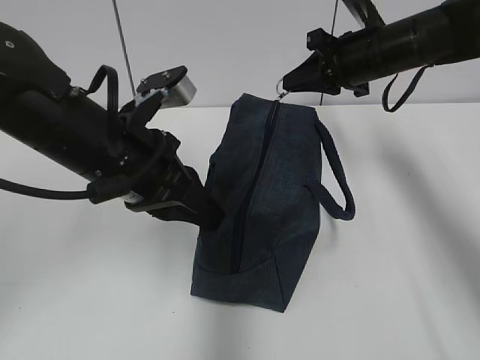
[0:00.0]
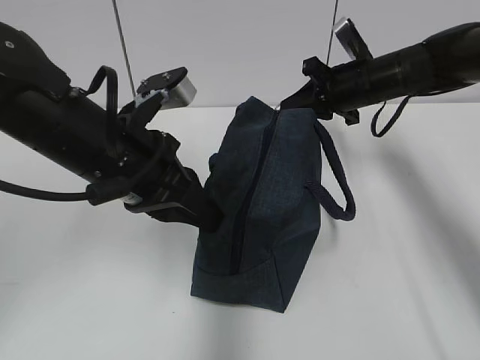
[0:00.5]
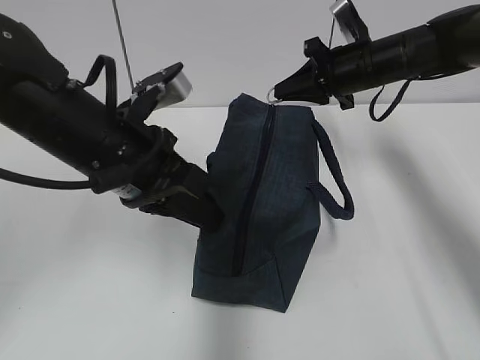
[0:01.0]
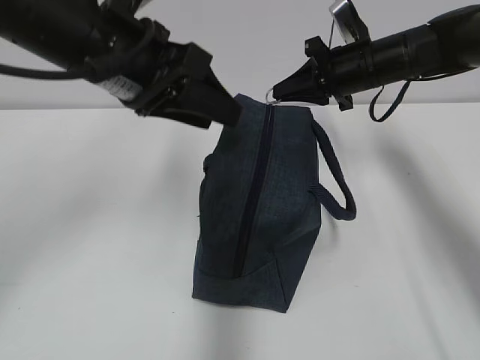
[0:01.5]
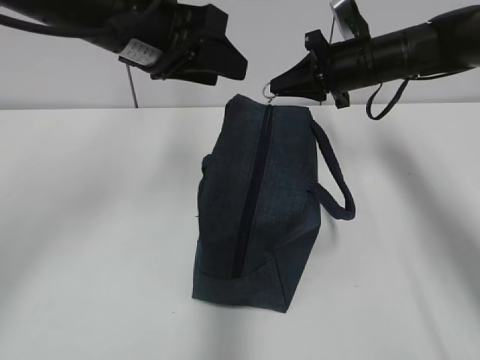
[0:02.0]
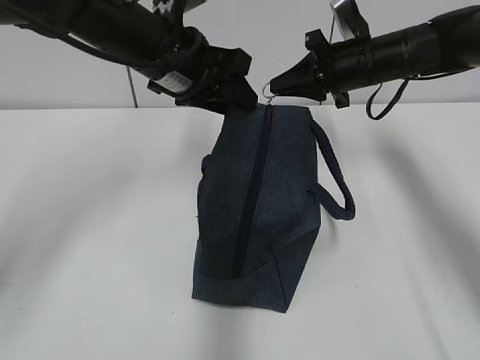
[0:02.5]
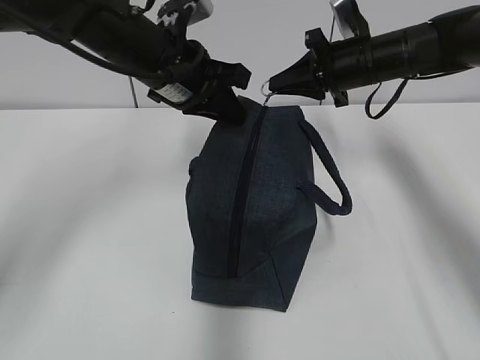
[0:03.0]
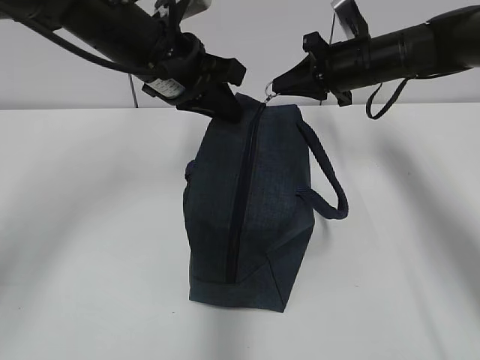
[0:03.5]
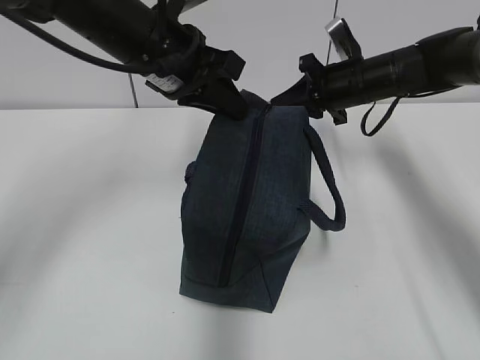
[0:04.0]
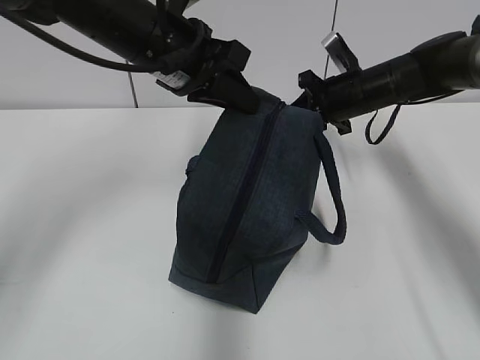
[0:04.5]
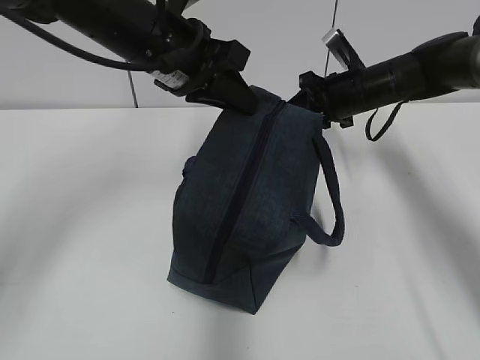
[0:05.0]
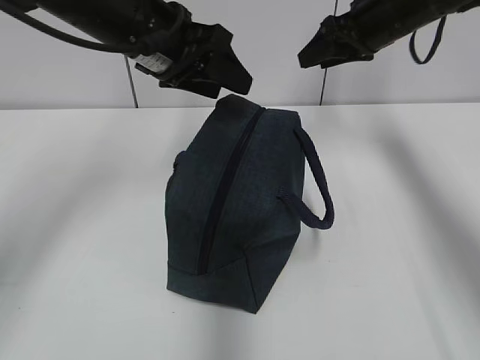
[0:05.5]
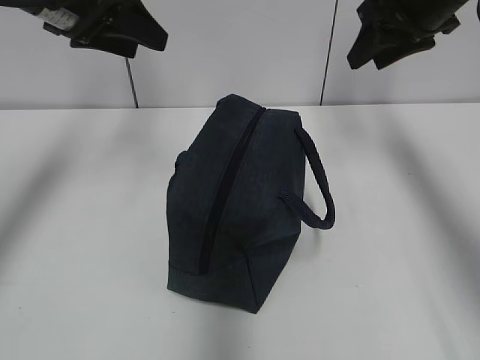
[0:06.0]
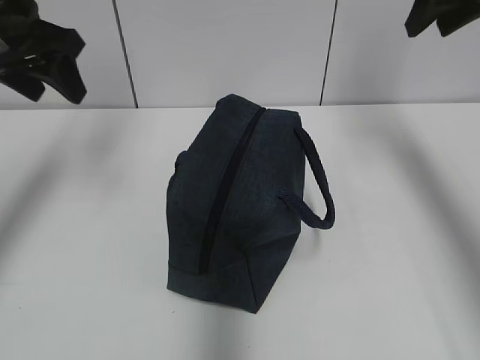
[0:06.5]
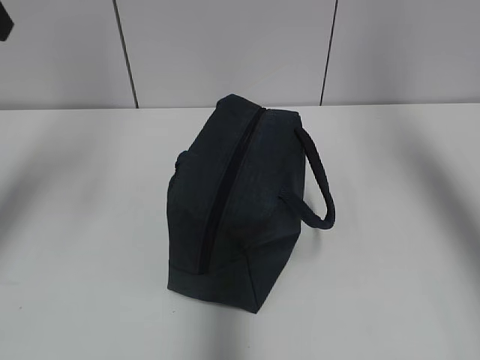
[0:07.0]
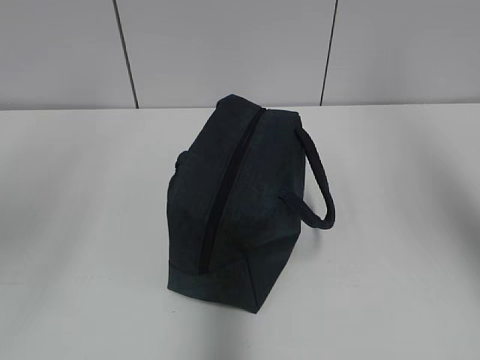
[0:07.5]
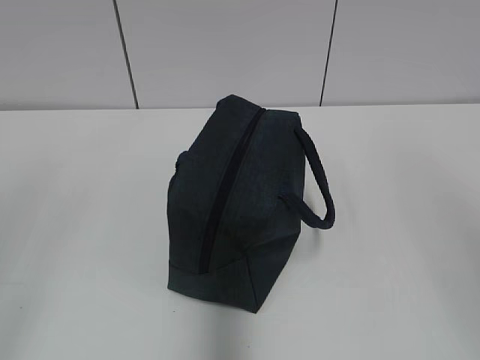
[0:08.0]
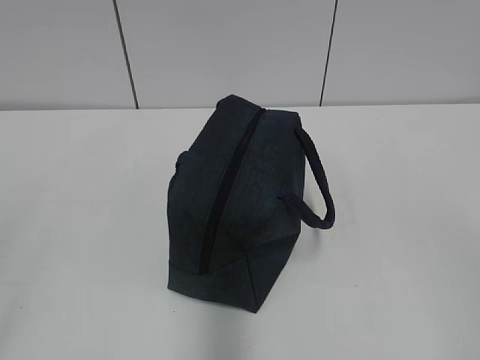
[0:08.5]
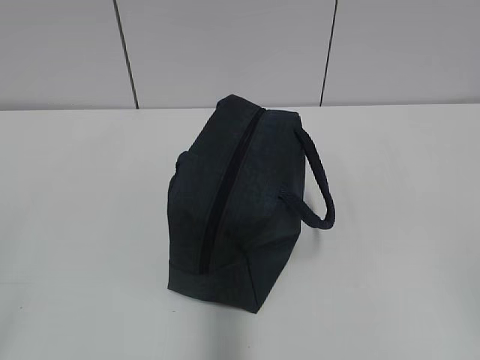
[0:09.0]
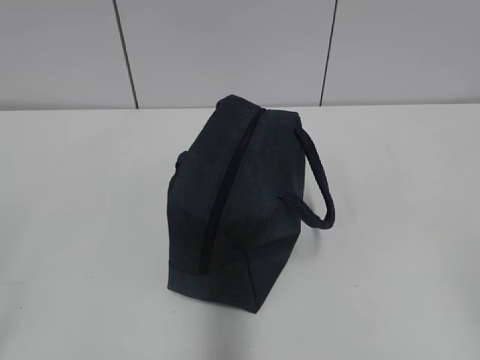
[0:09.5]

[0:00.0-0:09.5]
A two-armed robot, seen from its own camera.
Step, 0:01.5 to 0:04.5: Pull the zipper with your right hand.
0:00.0 to 0:02.0: The left gripper travels upward and forward by approximately 10 cm, and opens.
0:02.0 to 0:04.0: The left gripper closes its fingers.
0:04.0 to 0:05.5: The right gripper heads upward, covering approximately 10 cm, and opens. Meanwhile the left gripper opens its fingers.
0:05.5 to 0:07.5: The left gripper moves backward, to the left and upward, some 30 cm. Meanwhile the right gripper is displaced backward and upward by about 35 cm.
0:07.5 to 0:09.5: The left gripper moves backward and downward, roughly 20 cm; the right gripper heads downward and backward, covering about 30 cm.

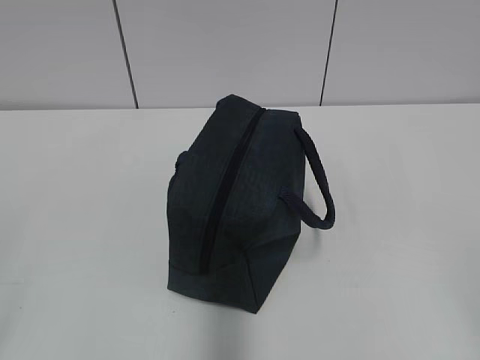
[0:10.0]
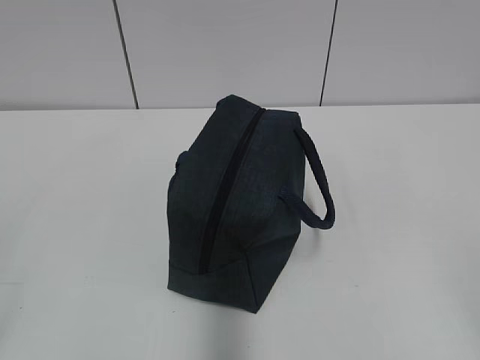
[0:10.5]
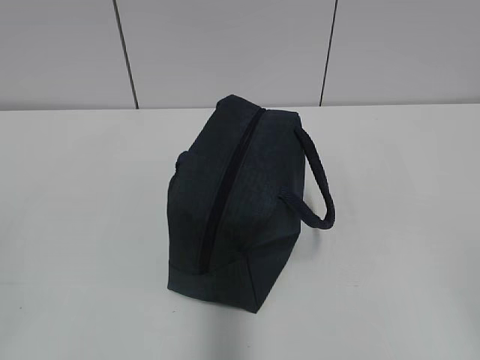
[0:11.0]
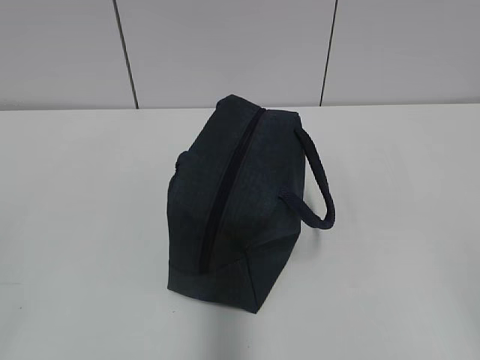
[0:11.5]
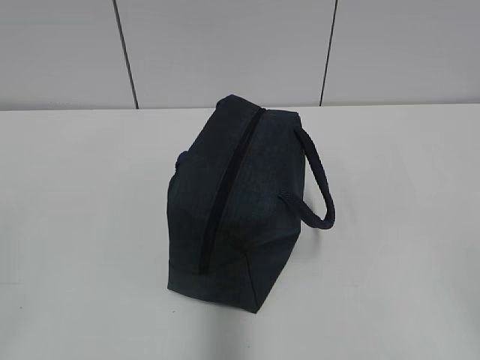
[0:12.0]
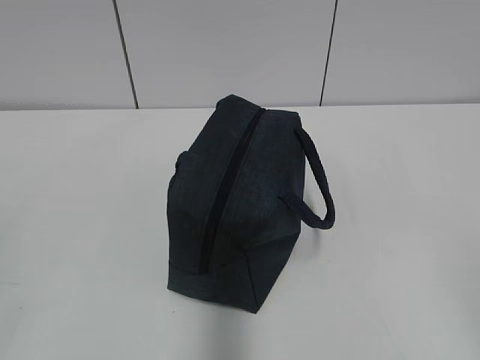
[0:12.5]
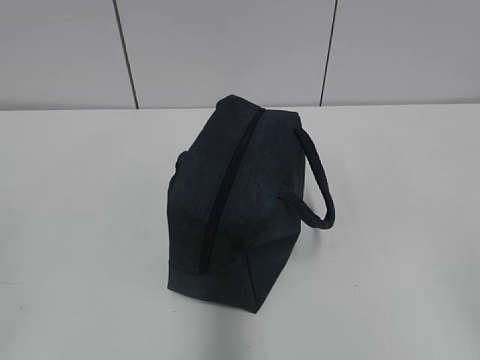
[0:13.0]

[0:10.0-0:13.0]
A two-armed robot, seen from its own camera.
0:11.5 to 0:13.0: Neither gripper changes place.

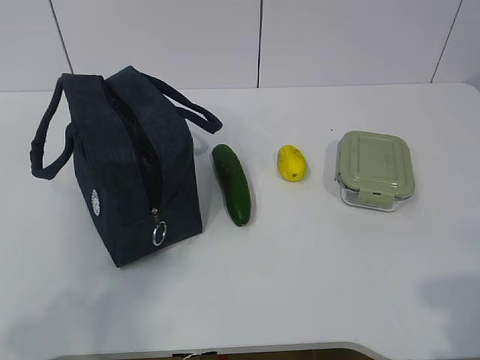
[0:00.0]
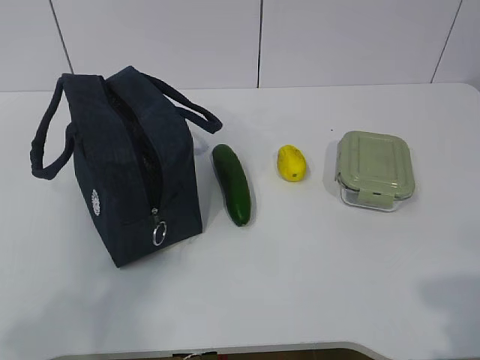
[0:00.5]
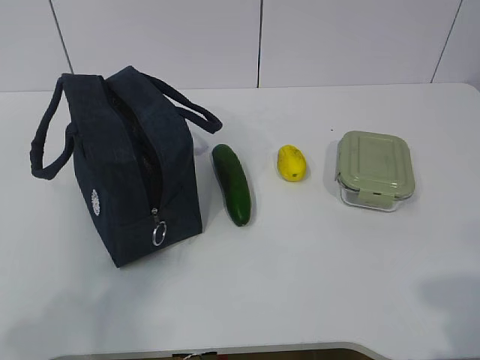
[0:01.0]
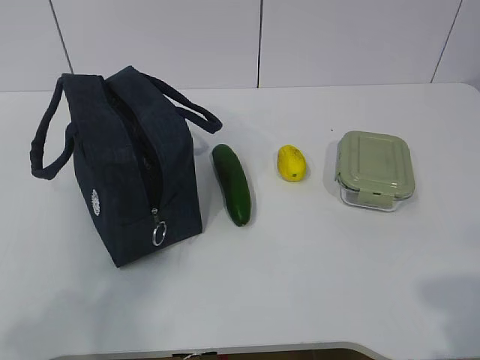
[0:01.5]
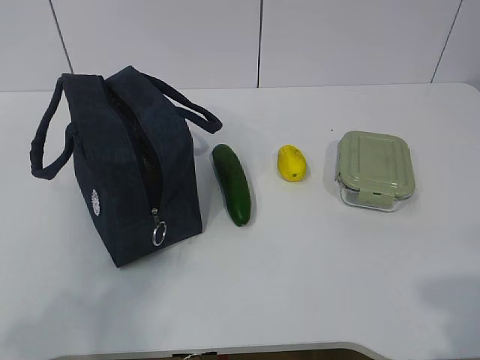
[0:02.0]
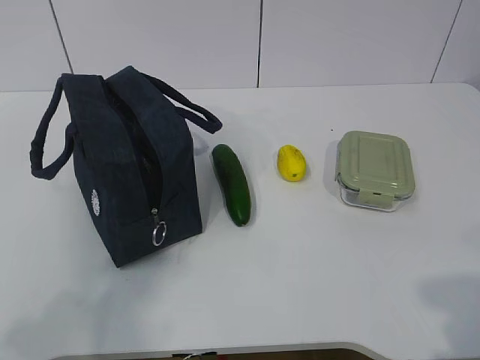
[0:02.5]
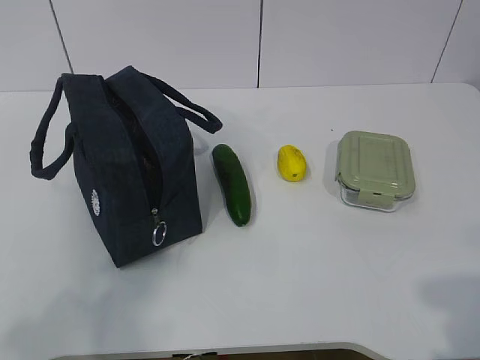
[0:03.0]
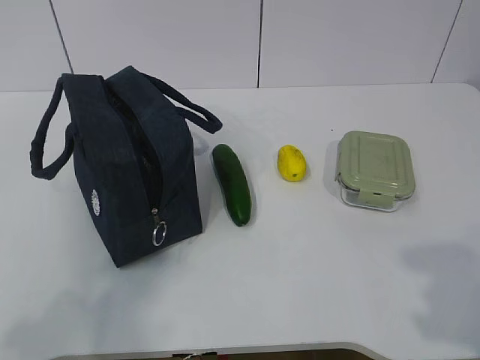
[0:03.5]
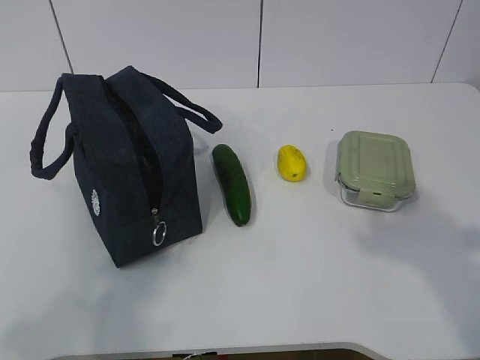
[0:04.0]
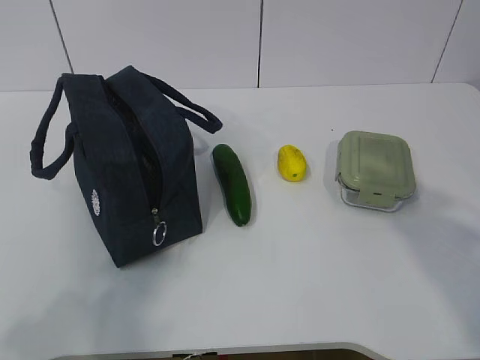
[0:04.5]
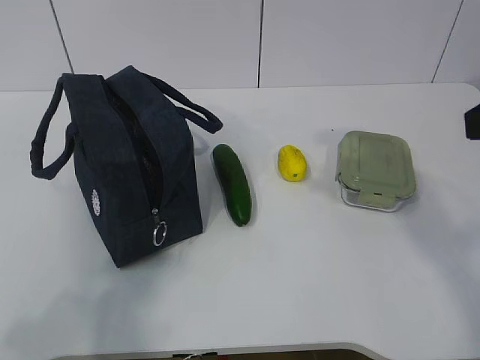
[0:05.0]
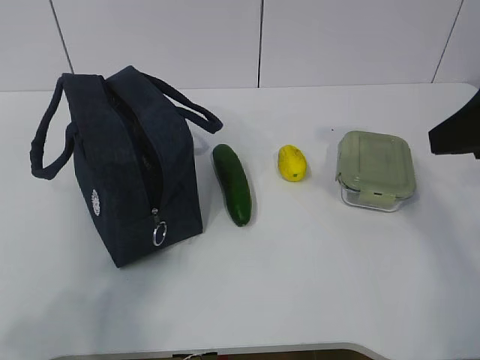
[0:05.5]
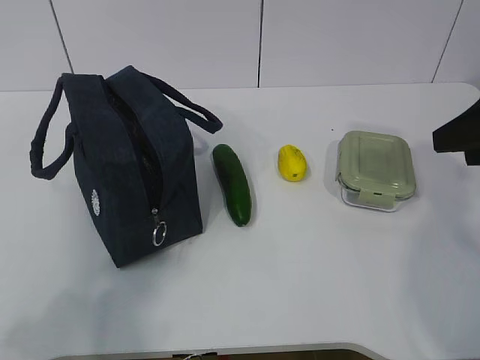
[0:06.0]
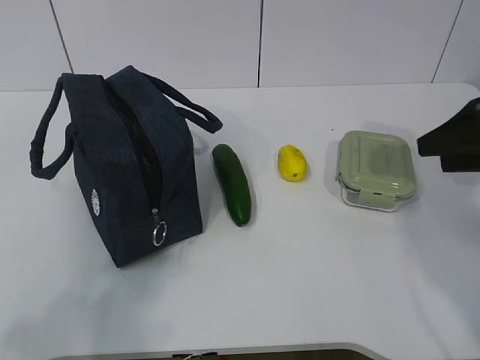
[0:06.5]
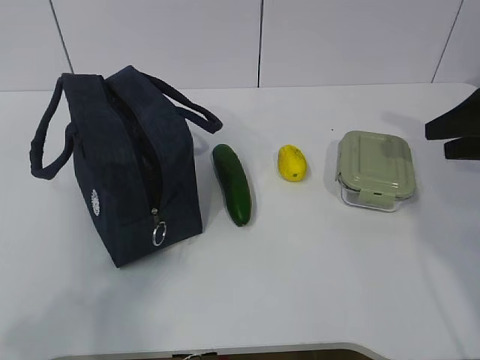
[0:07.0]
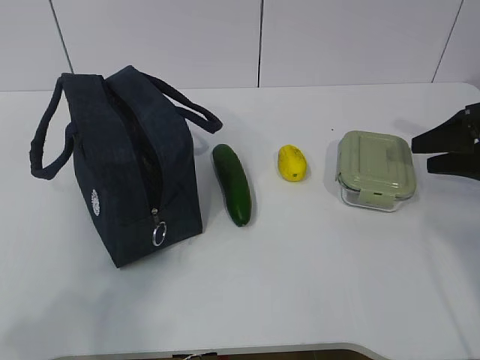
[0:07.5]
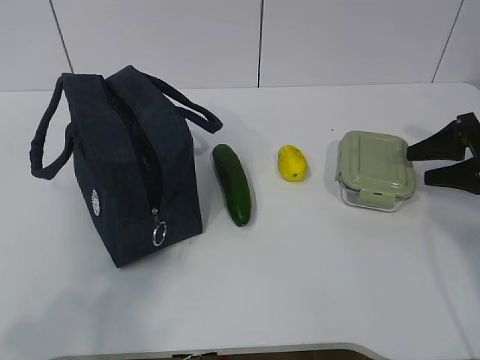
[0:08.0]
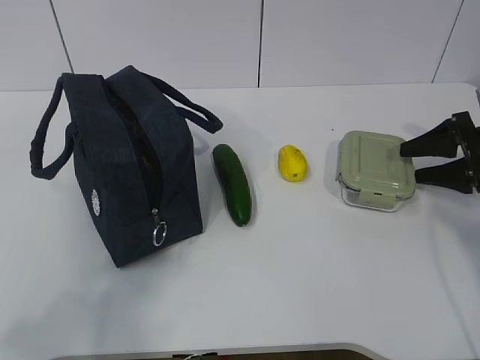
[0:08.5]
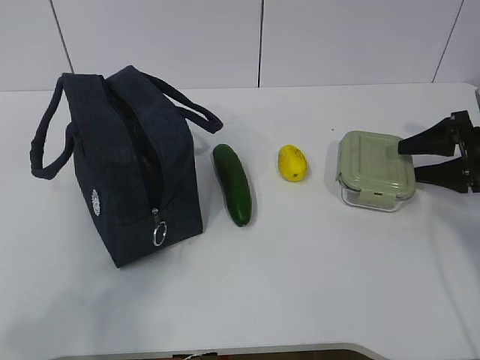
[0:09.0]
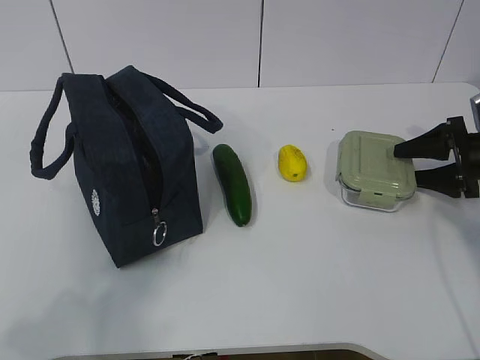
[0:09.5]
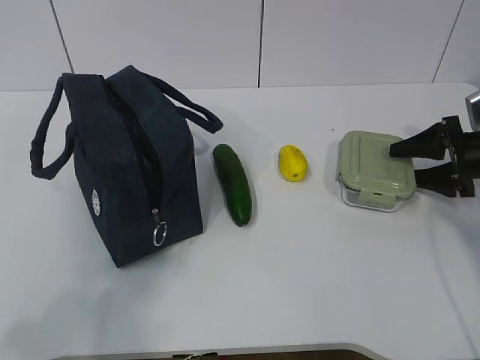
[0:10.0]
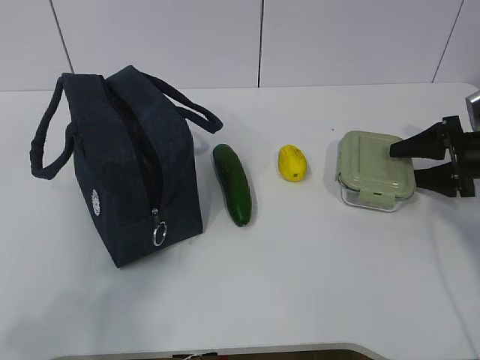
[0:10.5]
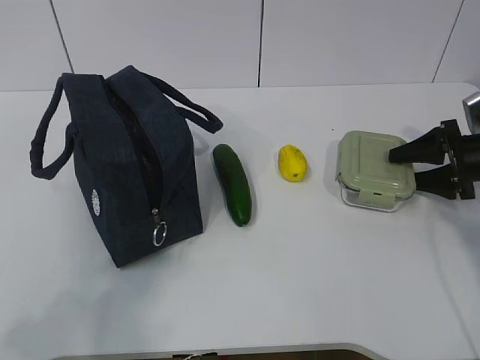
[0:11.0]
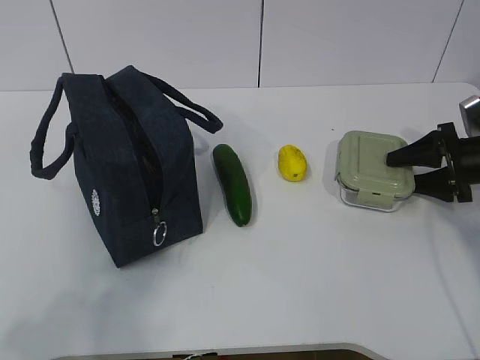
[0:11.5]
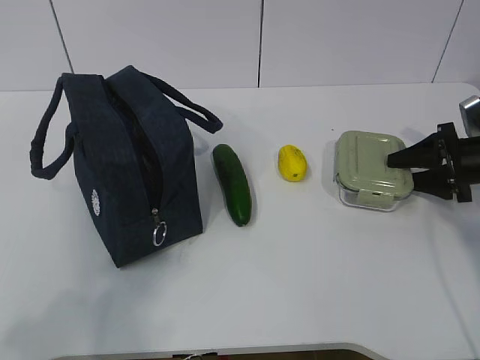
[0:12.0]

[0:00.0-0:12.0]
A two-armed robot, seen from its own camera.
Step, 0:00.0 to 0:10.5: Grab the lunch box with your right hand.
0:02.0 to 0:04.0: The right gripper is displaced forward and upward by some 10 cm.
0:04.0 to 0:06.0: The right gripper moves forward, roughly 20 cm.
0:06.0 to 0:08.0: The right gripper travels downward, forward and to the right by approximately 20 cm.
0:08.0 to 0:10.0: The grippers move only a little.
0:10.0 to 0:12.0: Both grippers stay put.

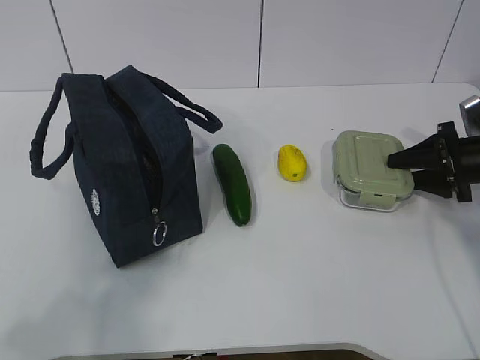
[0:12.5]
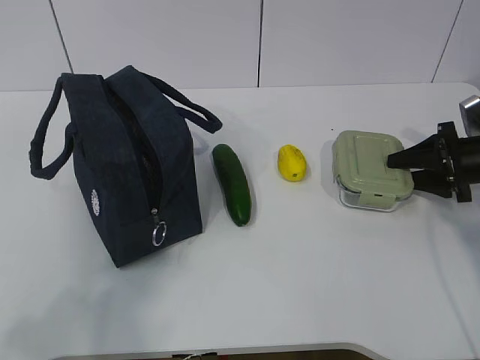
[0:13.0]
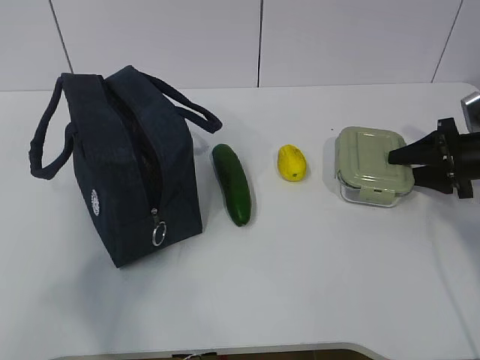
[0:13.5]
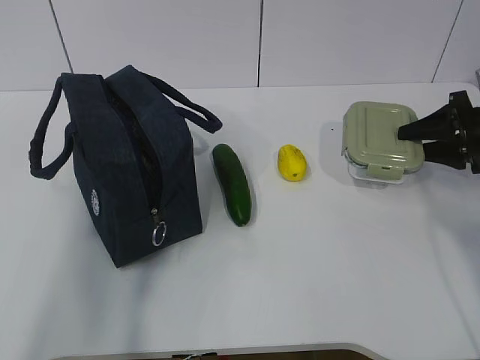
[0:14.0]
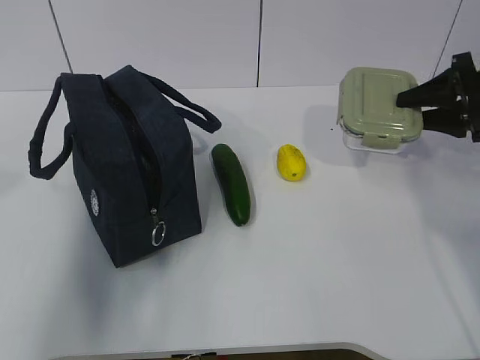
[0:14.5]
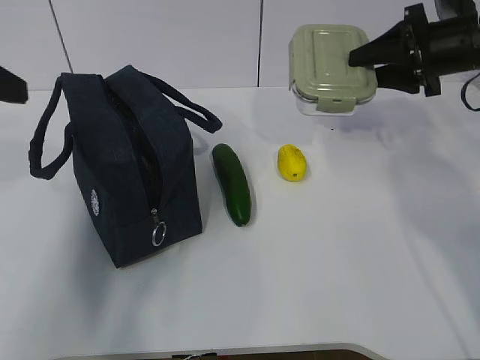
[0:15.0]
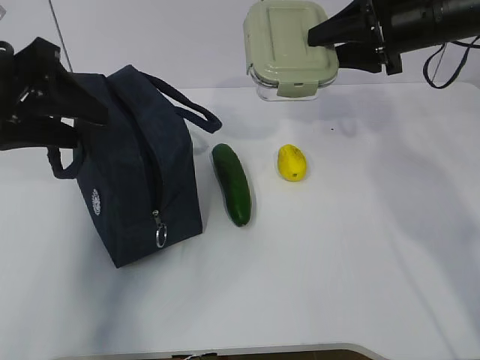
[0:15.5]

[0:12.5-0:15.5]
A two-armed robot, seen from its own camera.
Step, 0:12.5 to 0:14.5: Grab the lunch bag with your left hand.
0:12.5 to 0:14.0: The left gripper goes some 10 cm forward and upward.
0:14.0 to 0:15.5: The left gripper travels forward by approximately 20 cm; the right gripper moves to the left and upward, about 20 cm.
